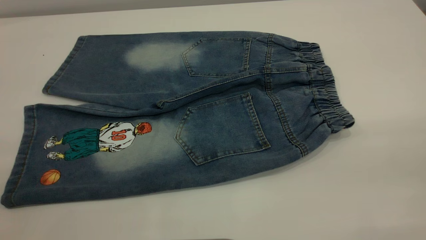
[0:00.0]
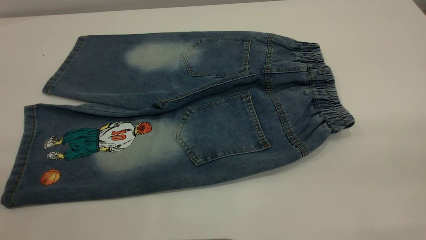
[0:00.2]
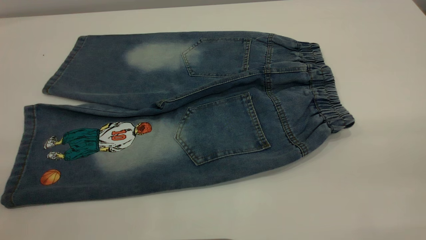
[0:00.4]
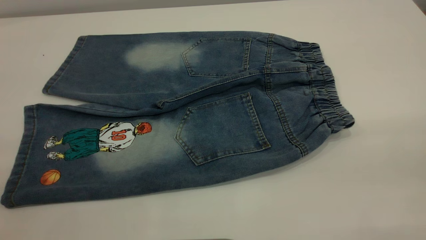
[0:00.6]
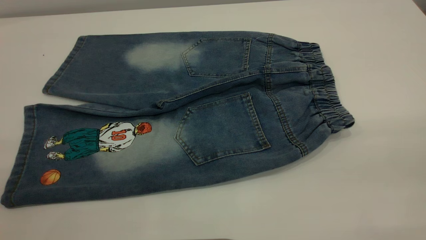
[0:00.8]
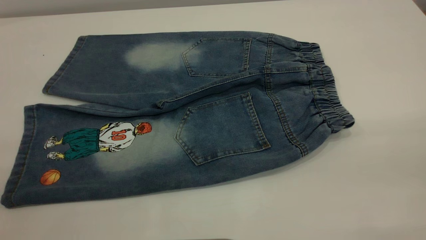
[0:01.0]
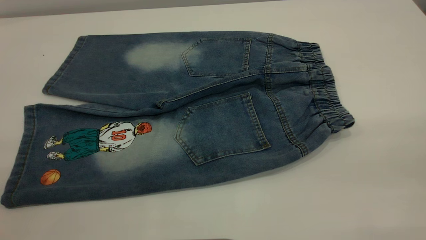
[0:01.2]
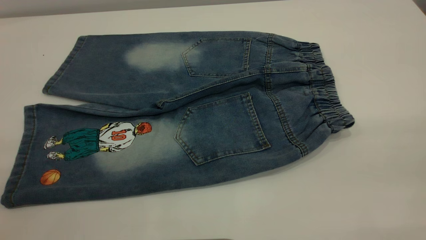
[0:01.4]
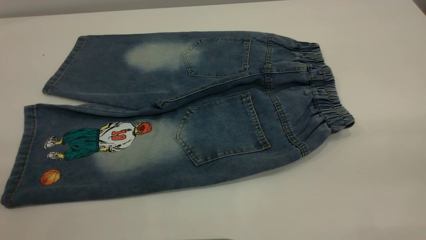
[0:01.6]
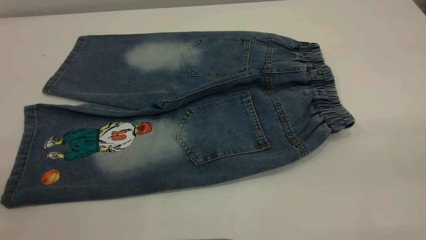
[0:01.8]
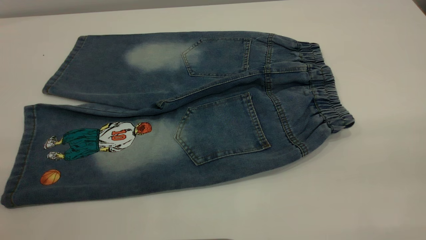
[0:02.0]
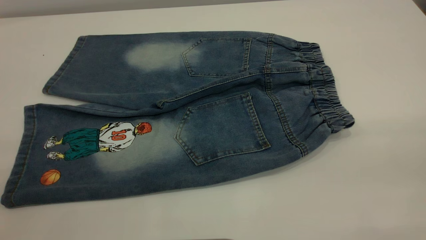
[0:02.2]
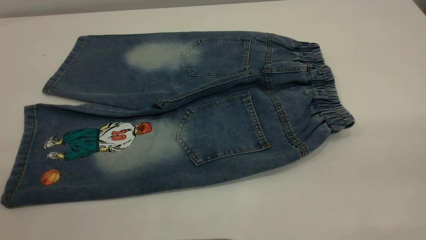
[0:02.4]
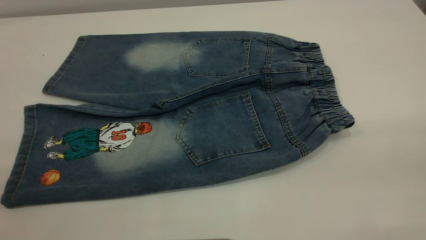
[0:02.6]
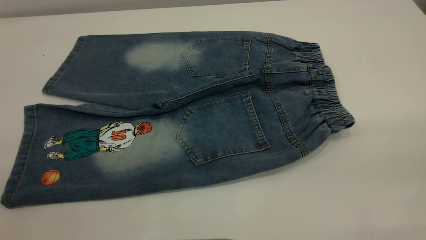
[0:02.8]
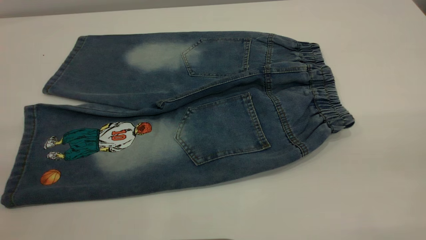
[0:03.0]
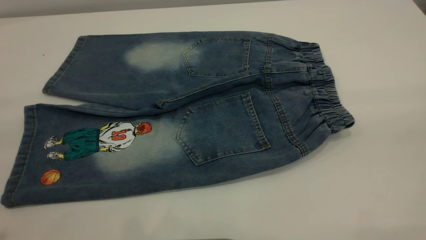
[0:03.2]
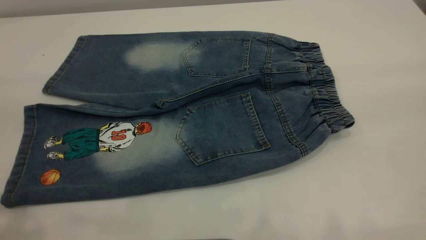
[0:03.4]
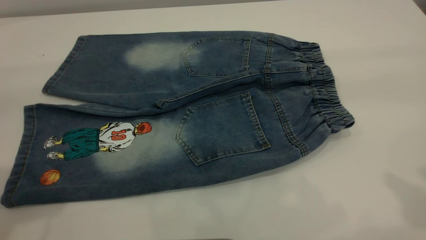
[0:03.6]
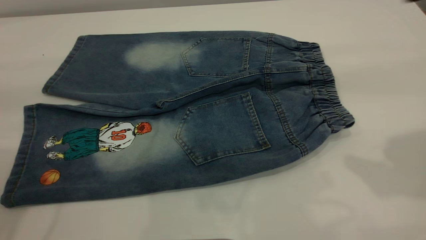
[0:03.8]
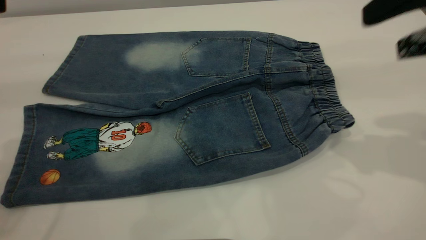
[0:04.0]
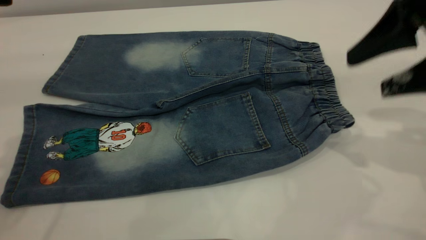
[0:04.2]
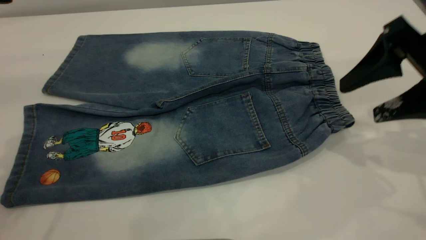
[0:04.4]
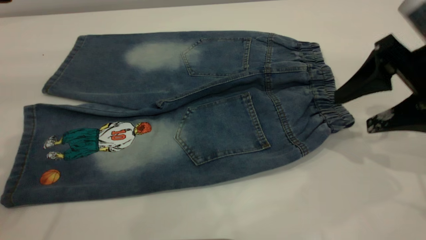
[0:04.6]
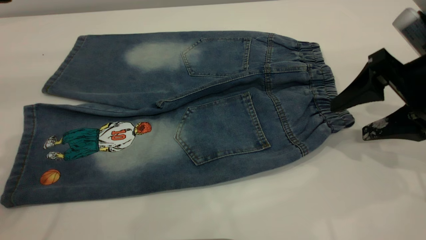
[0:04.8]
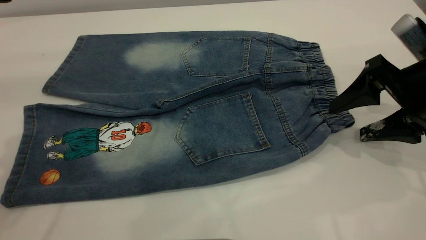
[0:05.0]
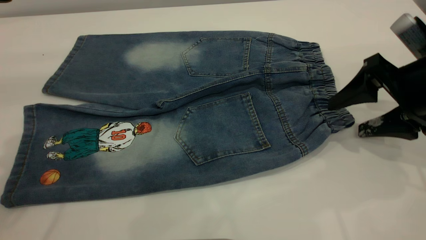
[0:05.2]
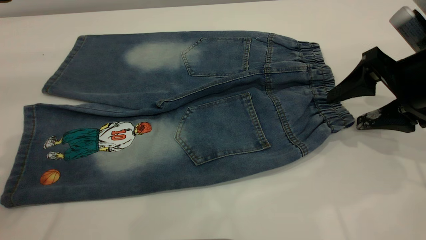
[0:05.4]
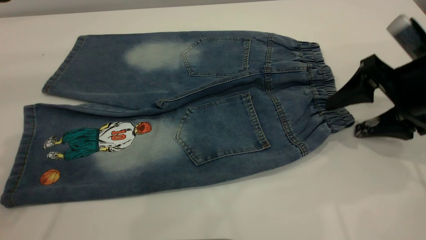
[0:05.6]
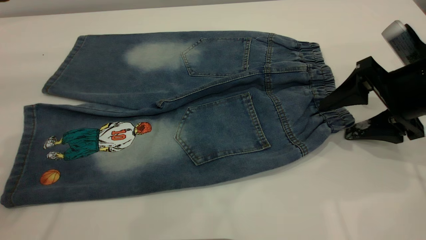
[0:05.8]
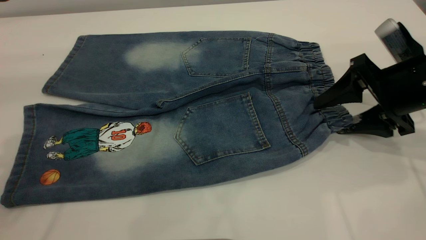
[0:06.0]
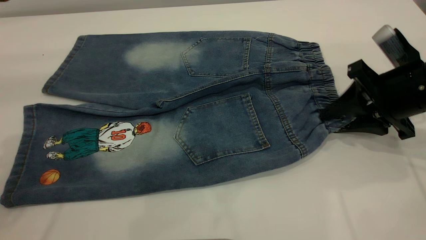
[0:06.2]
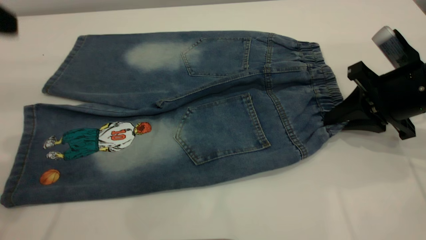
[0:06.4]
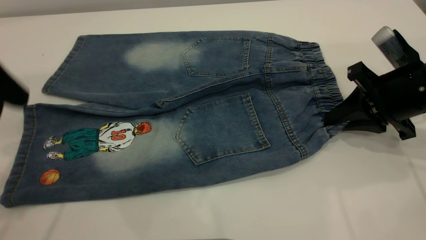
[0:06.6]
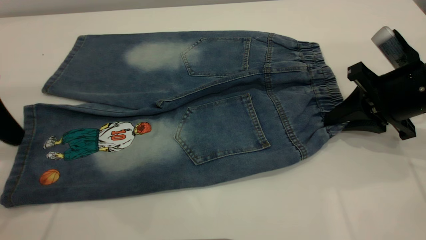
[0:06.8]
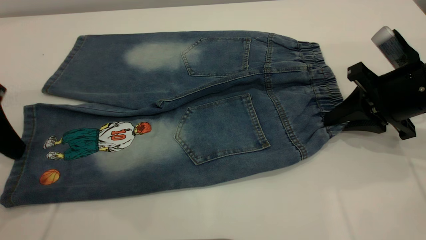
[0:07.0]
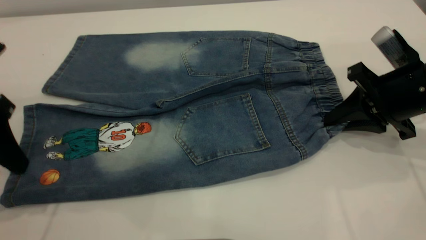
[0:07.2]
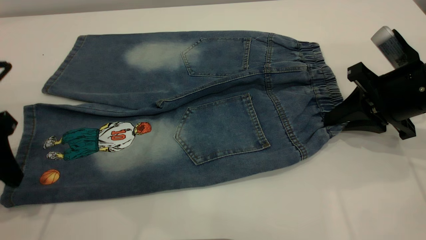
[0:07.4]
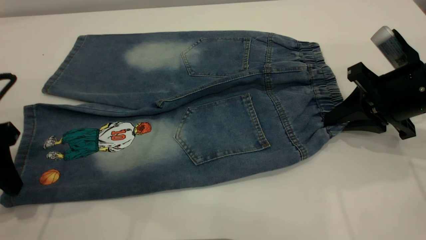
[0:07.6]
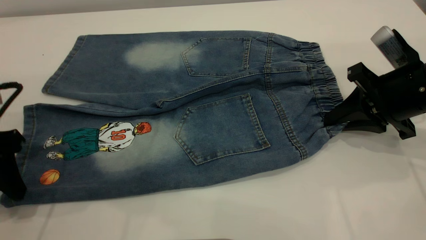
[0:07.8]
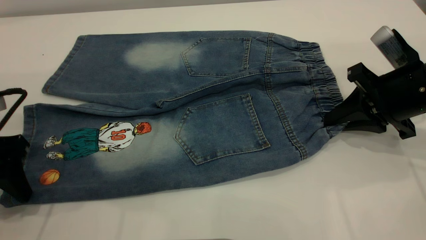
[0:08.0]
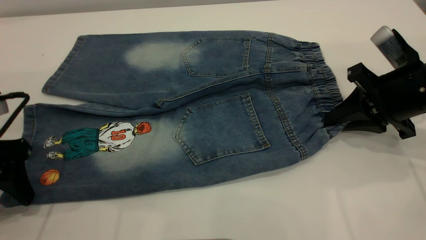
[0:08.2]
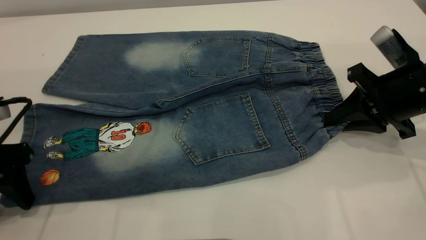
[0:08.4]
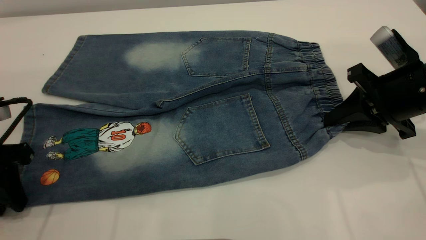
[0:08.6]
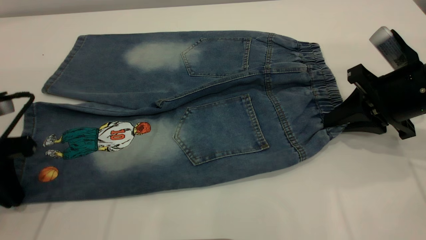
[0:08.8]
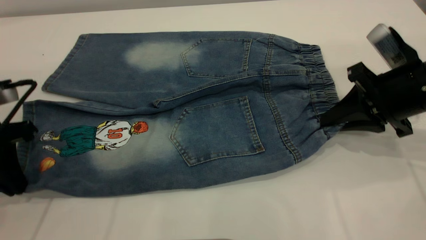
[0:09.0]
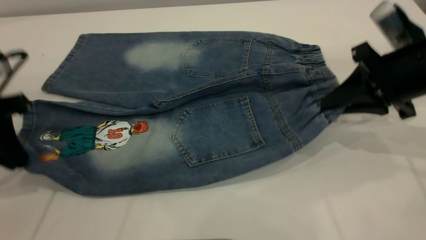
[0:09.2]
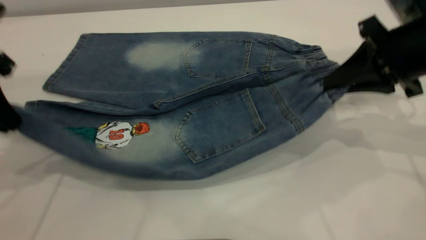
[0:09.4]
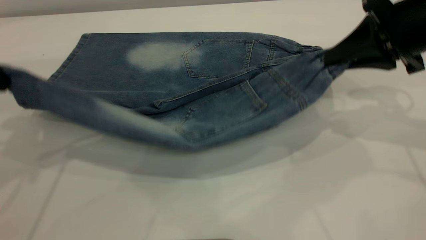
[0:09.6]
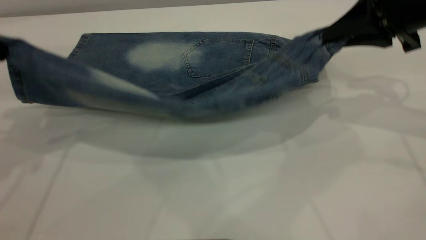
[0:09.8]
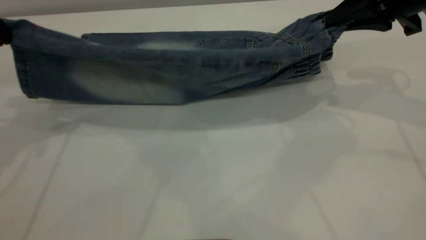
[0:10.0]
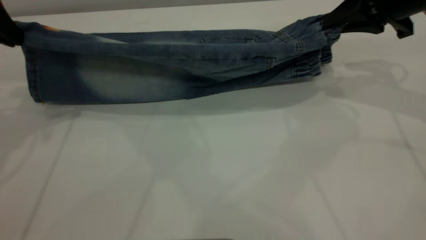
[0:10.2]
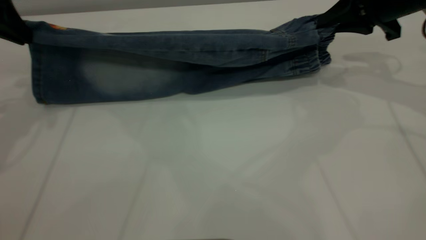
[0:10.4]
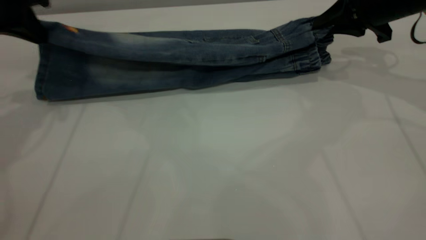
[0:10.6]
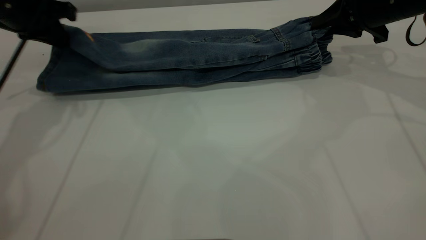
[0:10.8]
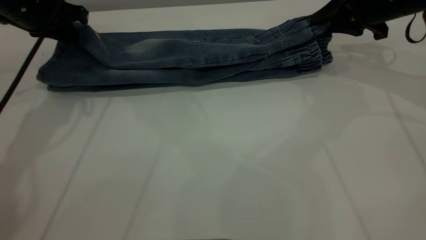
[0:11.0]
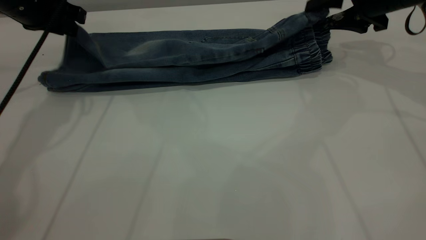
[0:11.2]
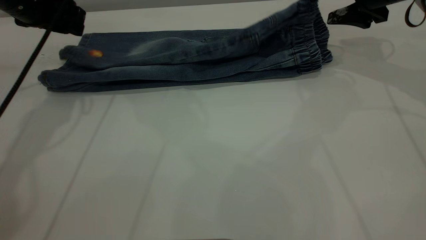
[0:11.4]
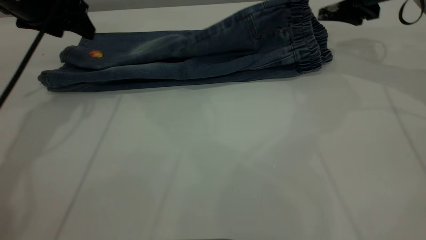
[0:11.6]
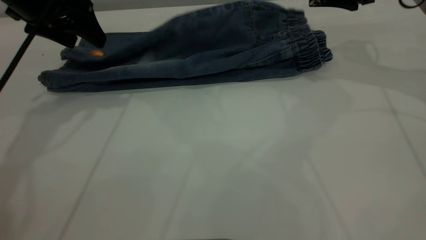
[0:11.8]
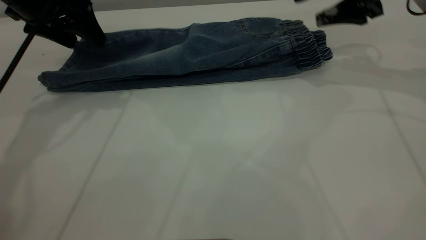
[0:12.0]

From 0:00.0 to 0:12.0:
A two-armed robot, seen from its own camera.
From 0:00.0 to 0:01.6: Neither gripper changes place.
From 0:03.0 to 0:04.4: The right gripper goes some 30 cm forward and downward.
From 0:04.4 to 0:06.0: The right gripper goes roughly 5 cm downward.
From 0:06.0 to 0:07.6: The right gripper closes its fingers. The left gripper is displaced downward by approximately 15 cm.
From 0:07.6 to 0:09.0: The left gripper closes up.
From 0:09.0 to 0:10.4: The grippers both shift forward and upward by roughly 15 cm.
From 0:10.4 to 0:12.0: The left gripper shifts approximately 5 cm to the right, and opens, while the right gripper opens up.

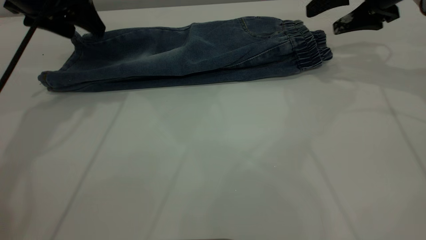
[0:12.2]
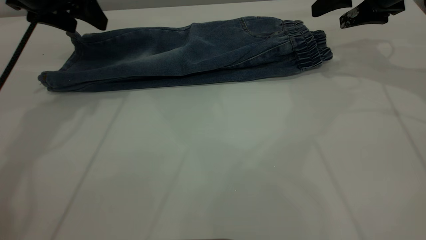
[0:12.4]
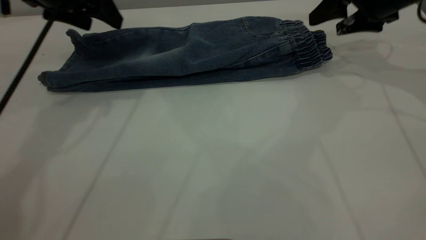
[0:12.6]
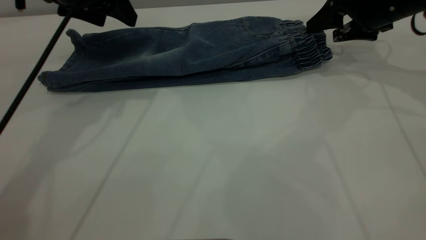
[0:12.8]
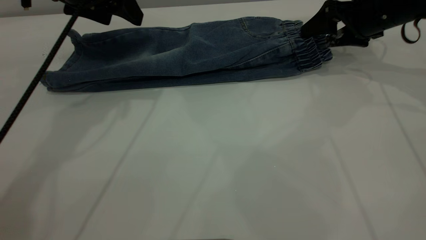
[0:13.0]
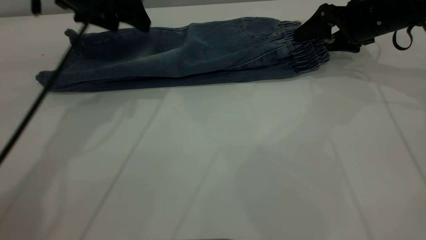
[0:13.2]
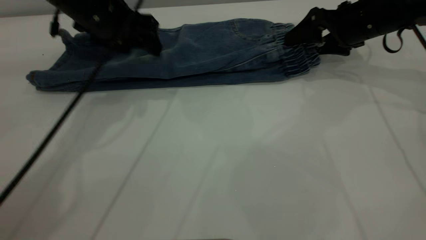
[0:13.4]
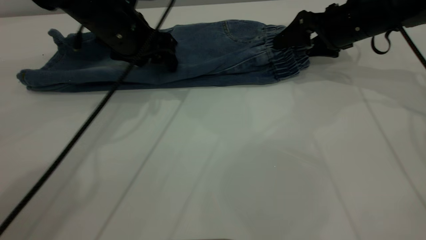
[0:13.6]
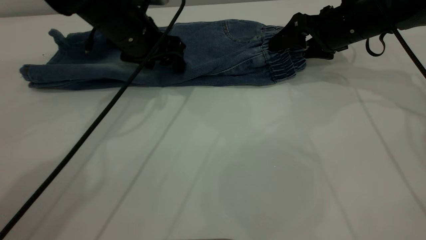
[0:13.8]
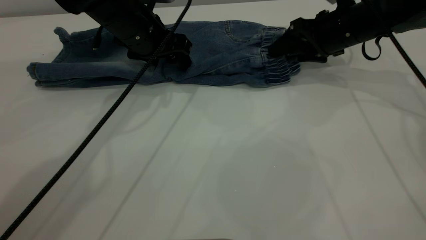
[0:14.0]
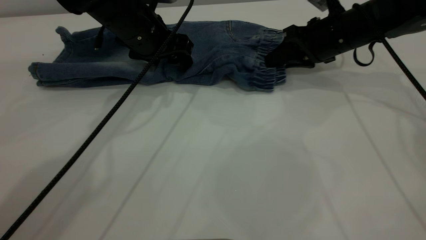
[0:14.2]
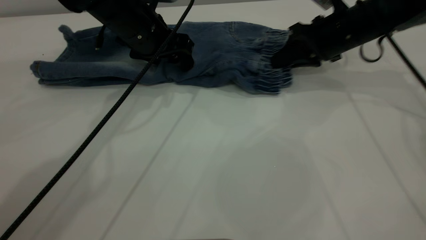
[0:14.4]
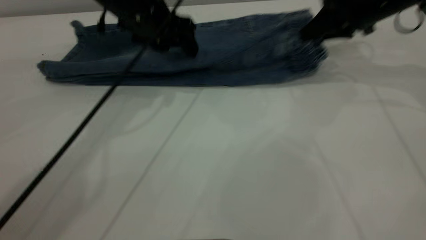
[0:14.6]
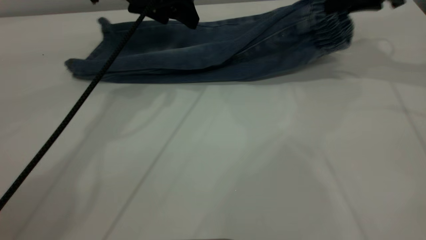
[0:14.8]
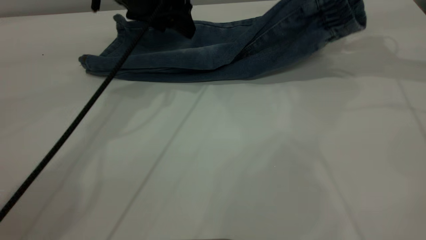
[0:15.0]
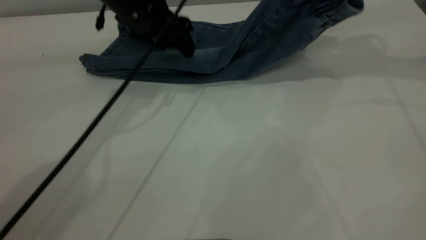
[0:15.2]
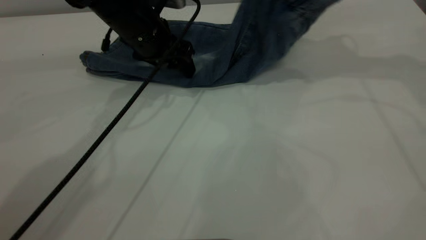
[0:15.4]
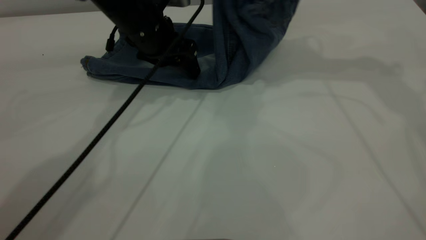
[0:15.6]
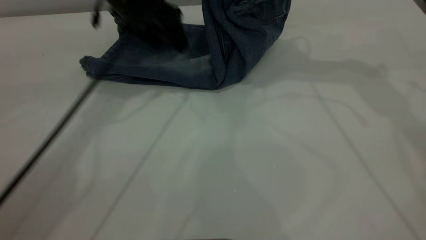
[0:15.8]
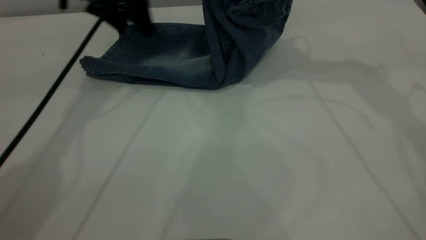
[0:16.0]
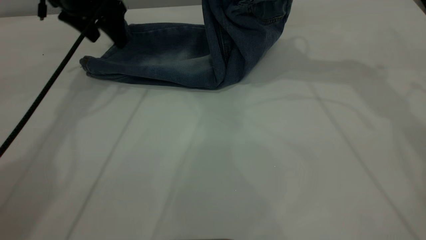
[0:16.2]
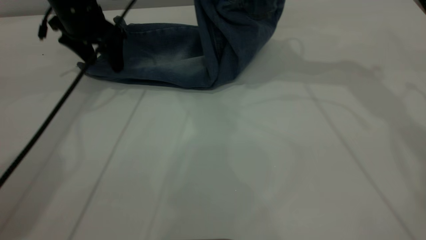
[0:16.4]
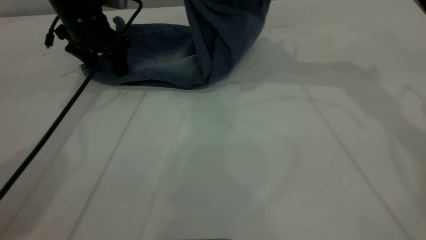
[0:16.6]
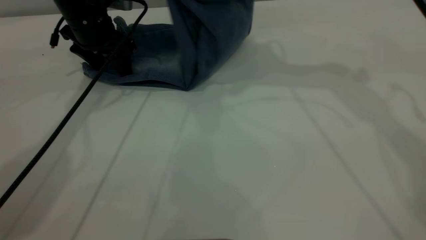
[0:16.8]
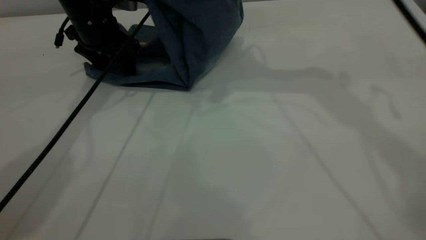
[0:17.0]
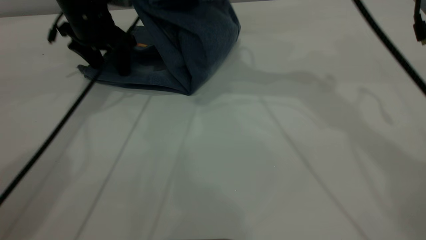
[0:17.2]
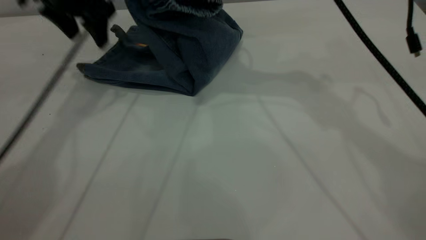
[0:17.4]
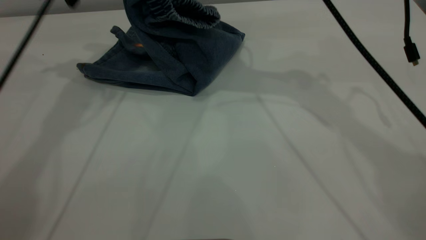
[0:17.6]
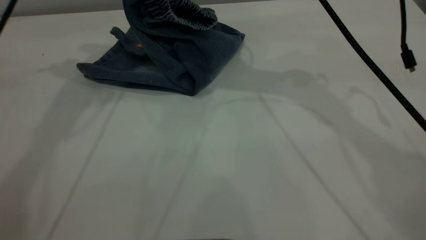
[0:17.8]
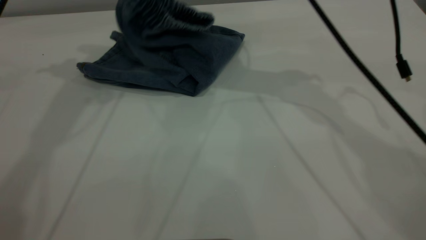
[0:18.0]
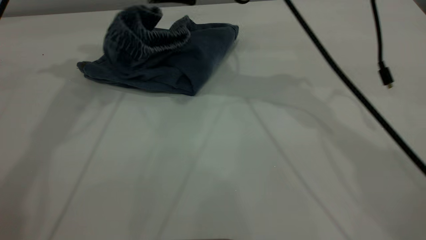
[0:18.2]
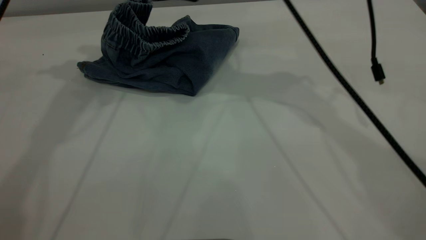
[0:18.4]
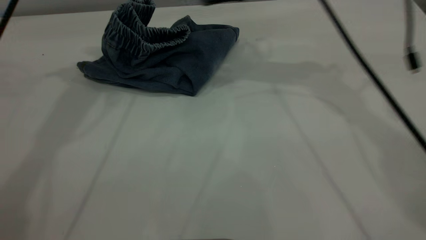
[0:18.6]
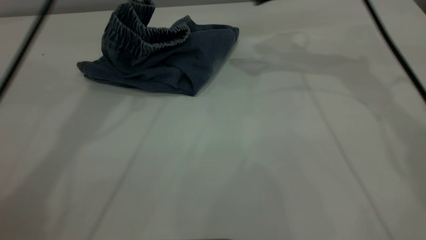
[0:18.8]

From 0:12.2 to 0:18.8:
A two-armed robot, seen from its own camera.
Step, from 0:12.4 to 0:18.6: Fold your pants from right to left.
From 0:12.2 to 0:13.8: The left gripper shifts roughly 15 cm to the right and downward. Meanwhile the right gripper goes roughly 10 cm downward and to the left.
From 0:13.8 to 0:15.4: The left gripper goes upward and returns, about 10 cm each way. Meanwhile the right gripper shifts some 15 cm upward, and closes up.
From 0:15.4 to 0:17.2: The left gripper is displaced to the left by roughly 10 cm, while the right gripper travels to the left by approximately 15 cm.
From 0:17.2 to 0:18.8: The left gripper heads upward, covering roughly 15 cm; the right gripper heads to the right and downward, covering approximately 10 cm, and opens its fingers.
